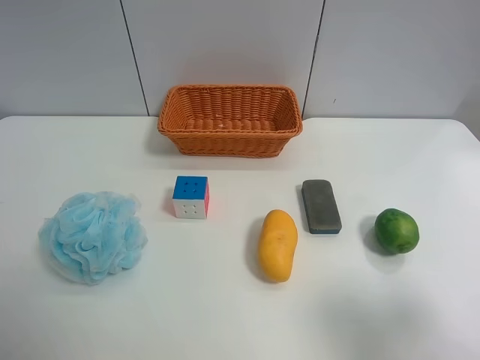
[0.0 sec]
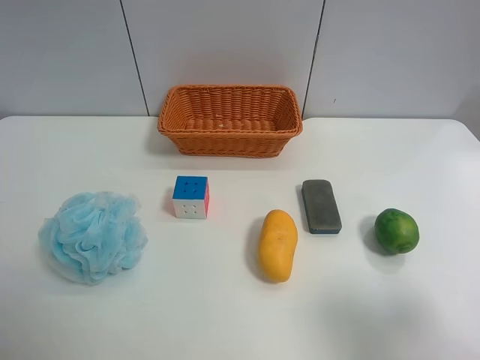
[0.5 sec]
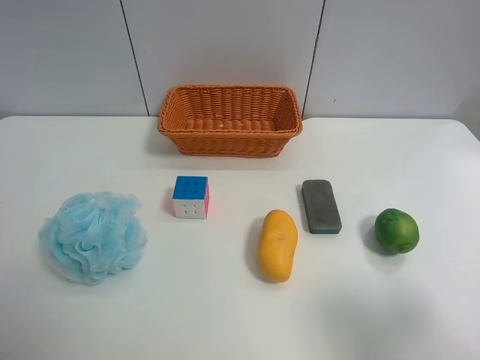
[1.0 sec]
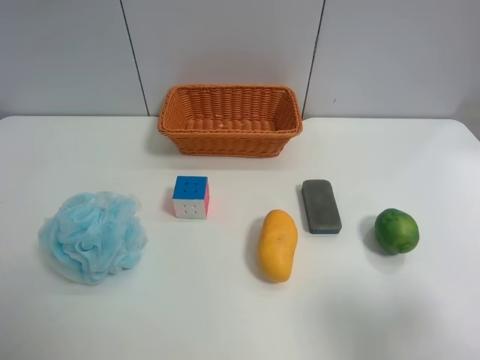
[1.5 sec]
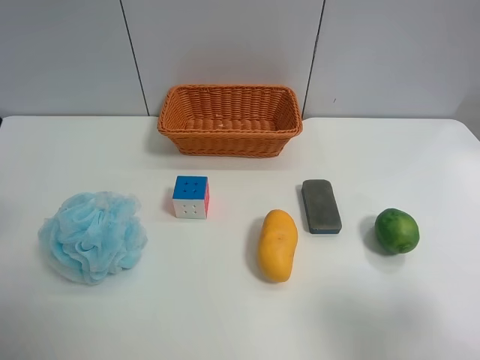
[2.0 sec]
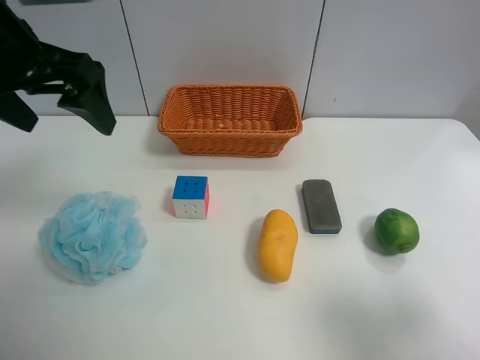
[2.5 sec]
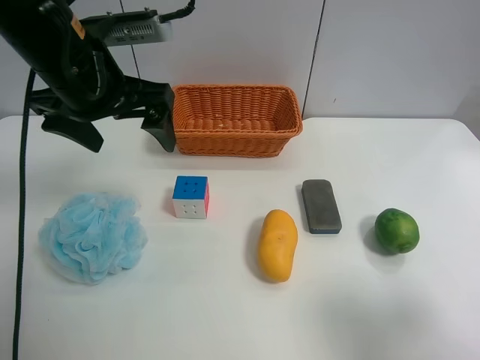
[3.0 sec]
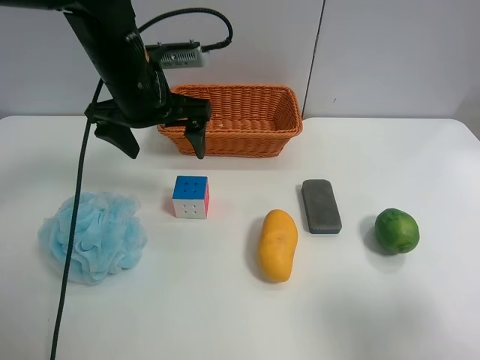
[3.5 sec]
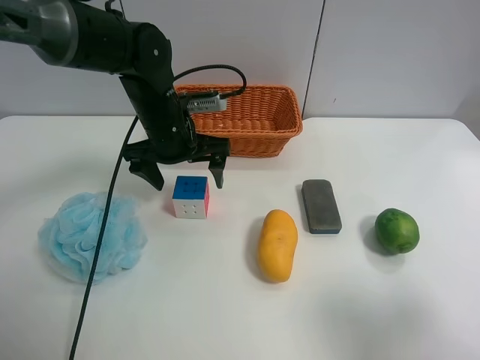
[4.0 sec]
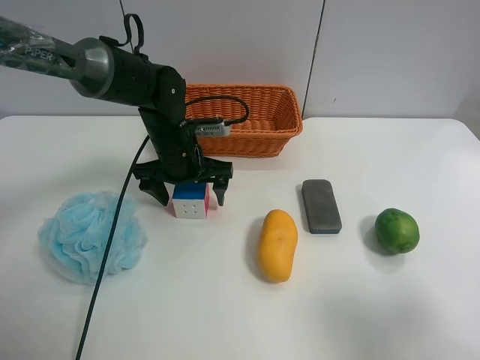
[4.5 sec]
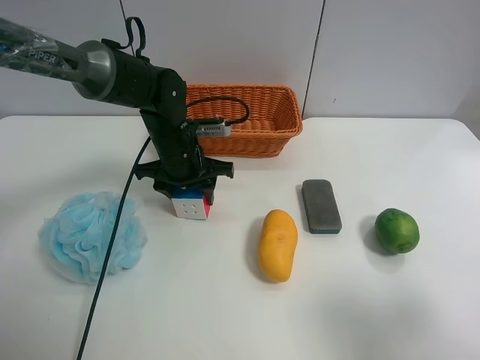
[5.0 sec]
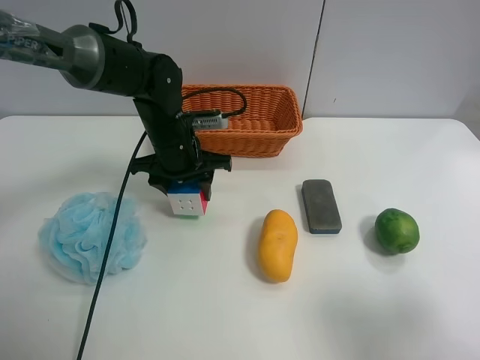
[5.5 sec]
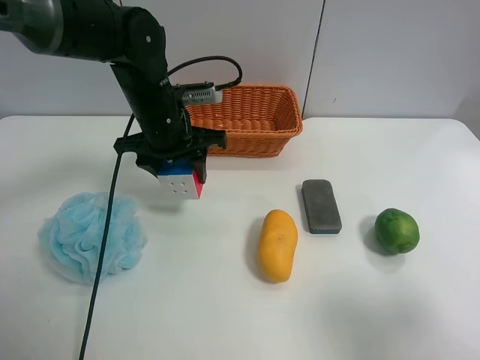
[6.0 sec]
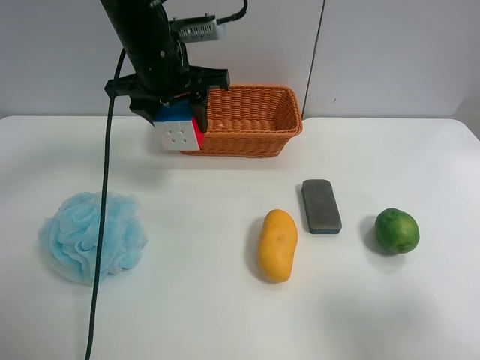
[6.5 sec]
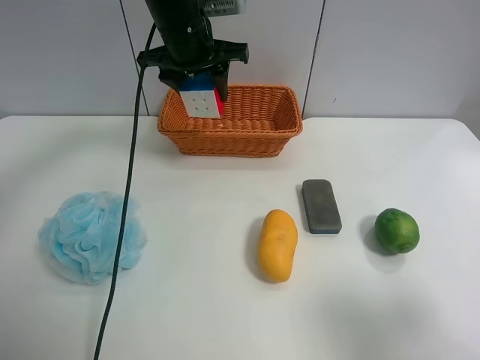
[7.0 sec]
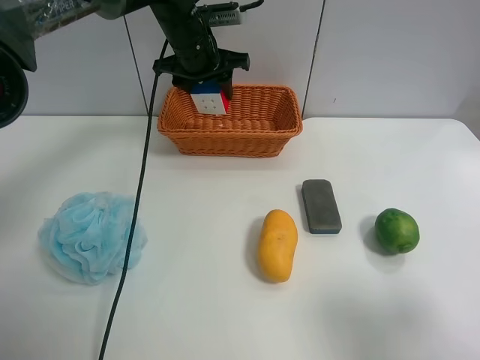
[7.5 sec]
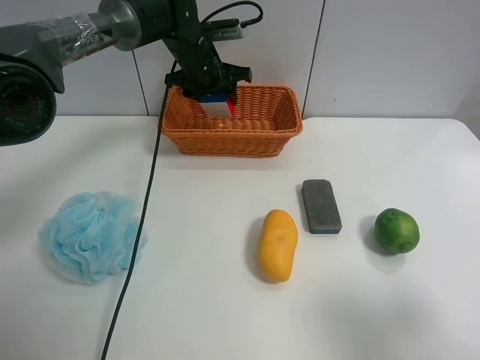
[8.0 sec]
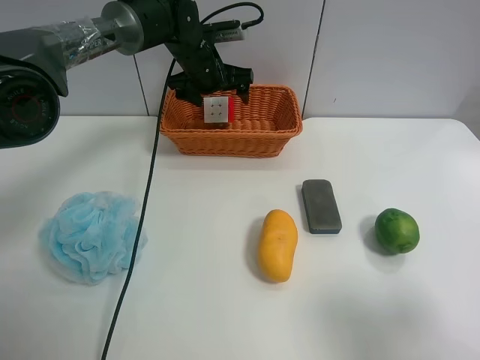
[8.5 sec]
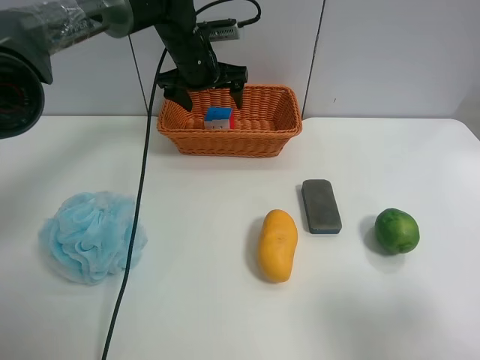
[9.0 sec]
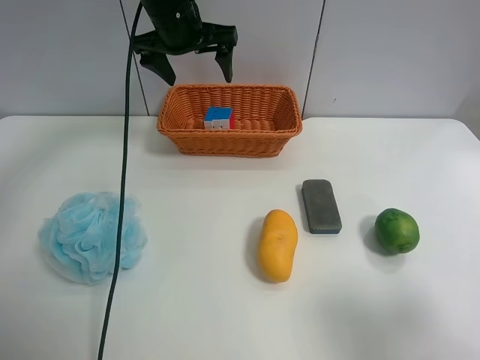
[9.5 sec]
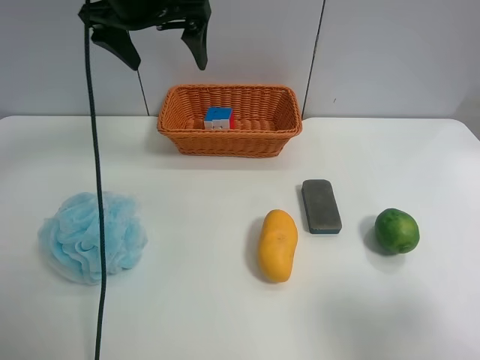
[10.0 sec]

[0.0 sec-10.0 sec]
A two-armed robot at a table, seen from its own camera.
Task of the whole recording: use the left gripper to grab items from the table and place them in the basket.
Step, 0.0 sec to 5.0 sec: Grasp the Rubik's Cube with the left gripper.
Step, 5.5 sec to 8.5 sec: Place the Rubik's Cube into the basket with the left gripper.
2.0 sec to 4.0 sec: The left gripper travels downward, to the right and forward by approximately 30 cm.
4.0 sec to 6.0 sec: The left gripper closes.
6.0 sec to 8.0 sec: The left gripper travels forward by some 15 cm.
8.0 sec to 10.0 sec: The left gripper heads upward and backward, covering approximately 20 cm, and opens.

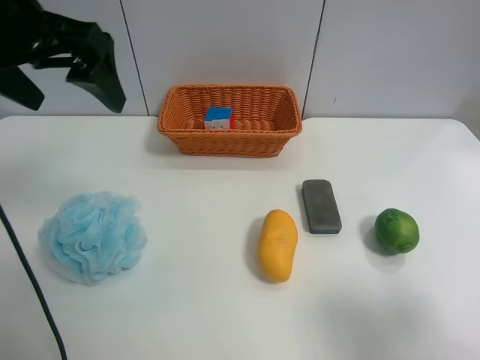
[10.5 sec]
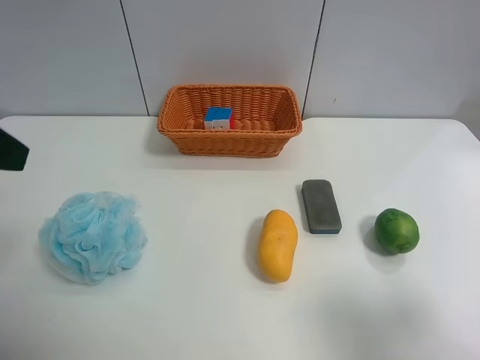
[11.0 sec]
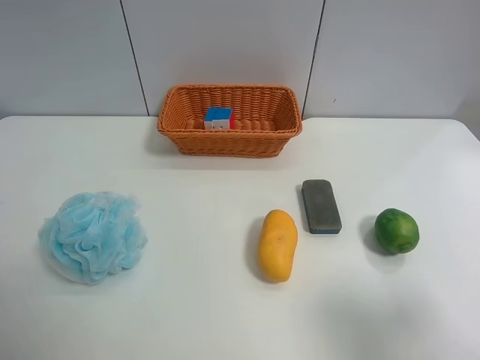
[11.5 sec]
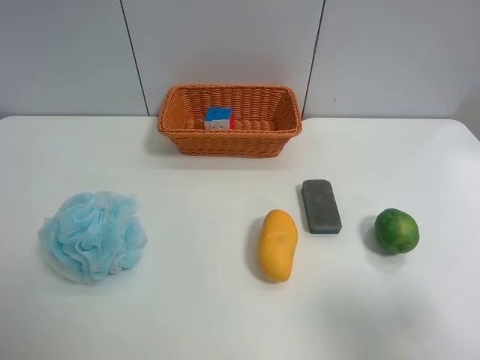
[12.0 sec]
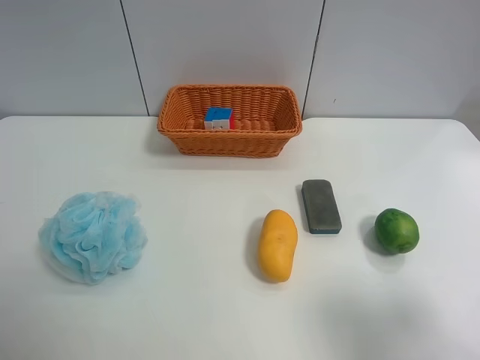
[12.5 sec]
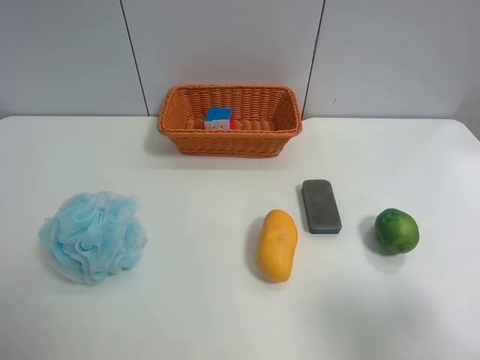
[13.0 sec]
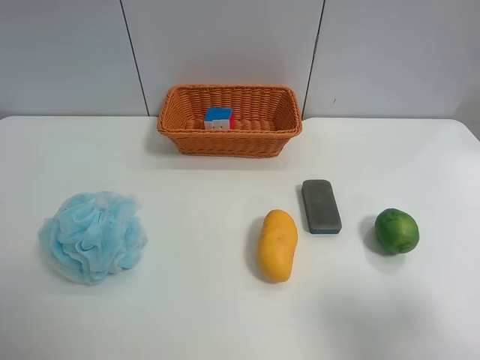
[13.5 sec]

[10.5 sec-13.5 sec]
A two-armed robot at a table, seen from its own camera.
Task of the whole recording: use the left gripper to grab items from the table and place them in the basket.
10.5 sec to 12.0 sec: The left gripper shifts about 25 cm backward and to the left.
